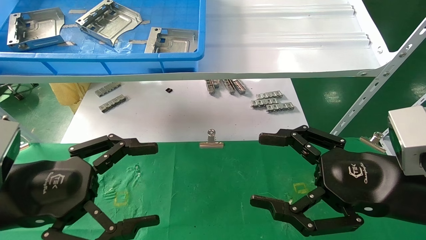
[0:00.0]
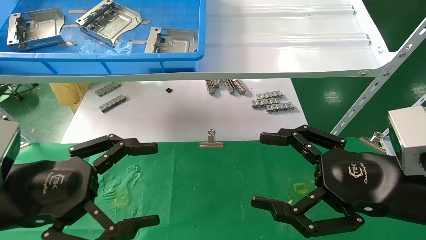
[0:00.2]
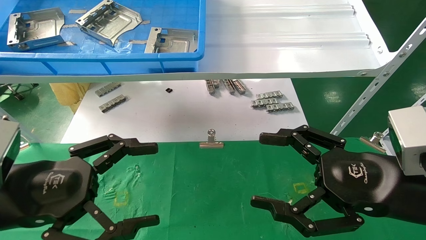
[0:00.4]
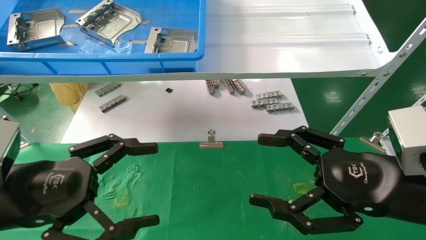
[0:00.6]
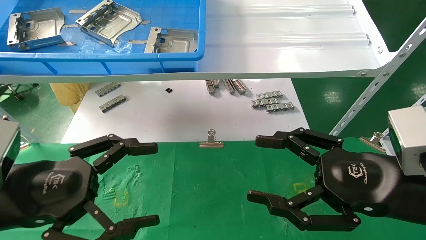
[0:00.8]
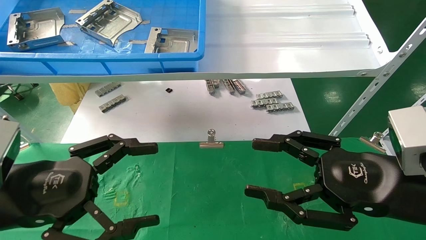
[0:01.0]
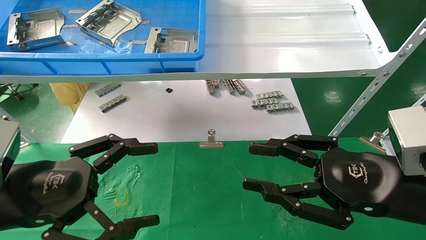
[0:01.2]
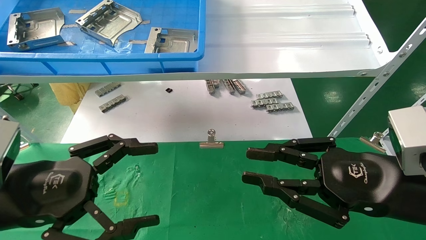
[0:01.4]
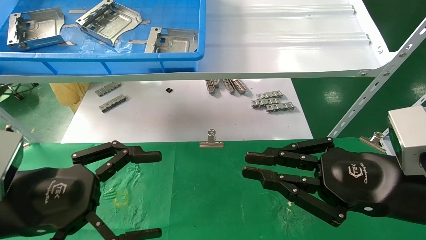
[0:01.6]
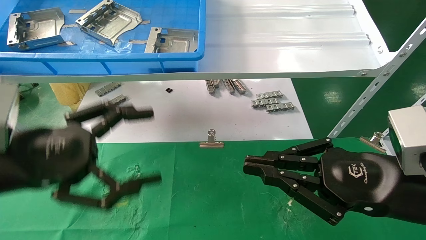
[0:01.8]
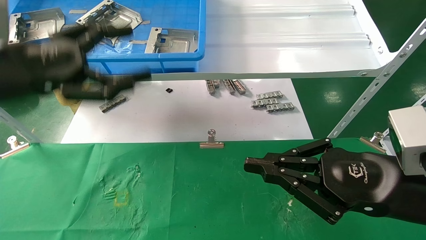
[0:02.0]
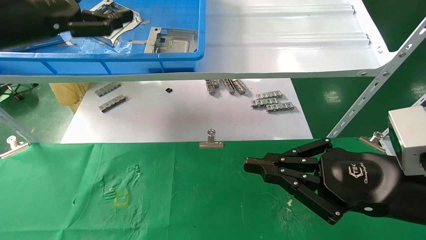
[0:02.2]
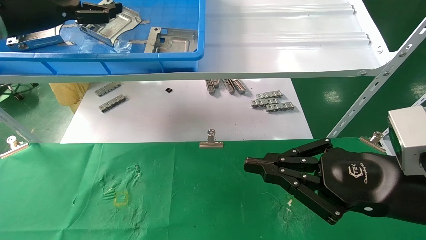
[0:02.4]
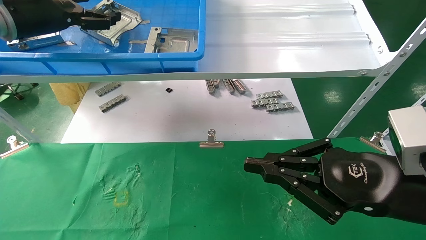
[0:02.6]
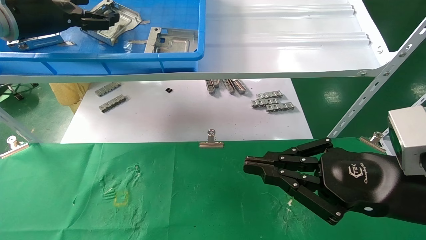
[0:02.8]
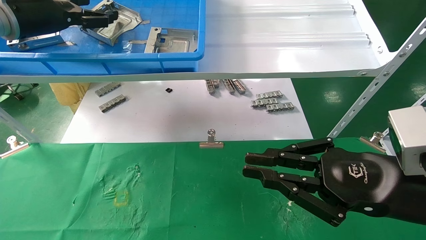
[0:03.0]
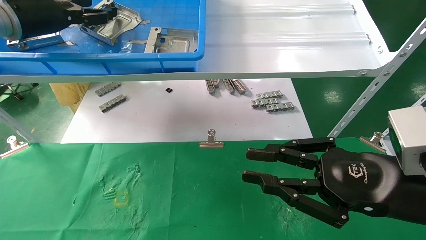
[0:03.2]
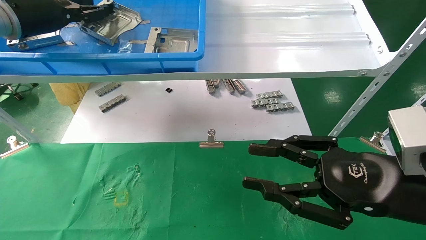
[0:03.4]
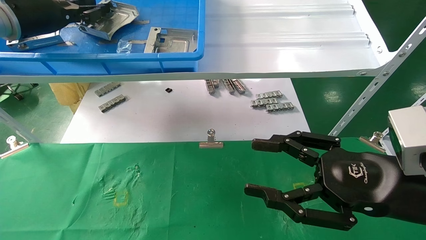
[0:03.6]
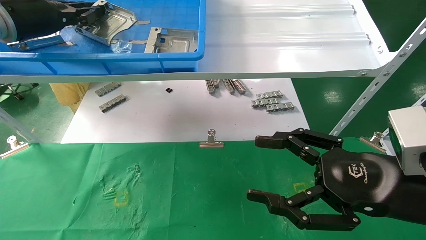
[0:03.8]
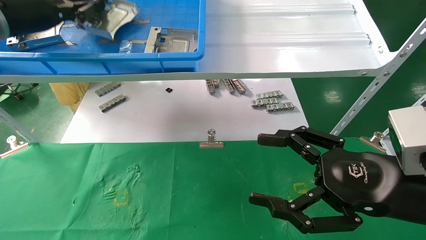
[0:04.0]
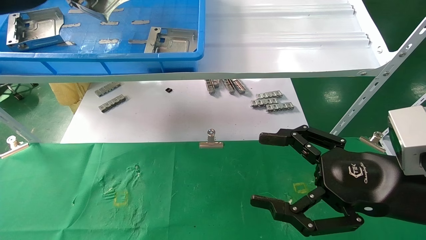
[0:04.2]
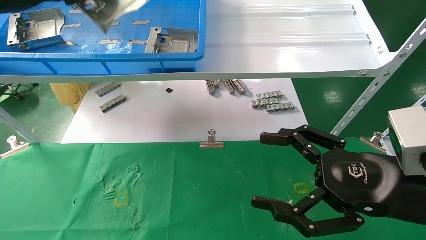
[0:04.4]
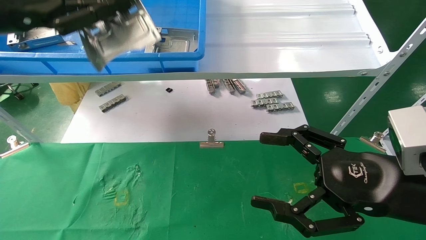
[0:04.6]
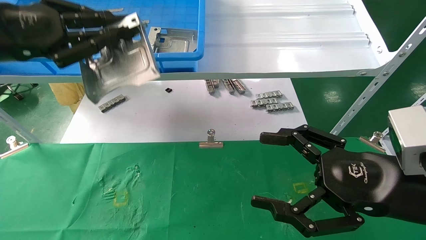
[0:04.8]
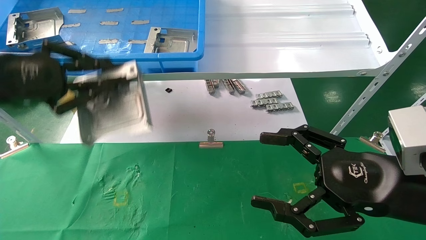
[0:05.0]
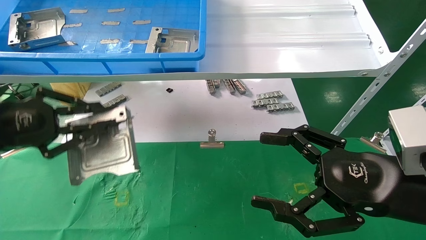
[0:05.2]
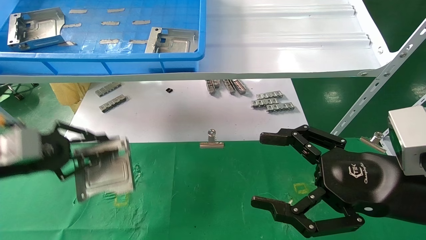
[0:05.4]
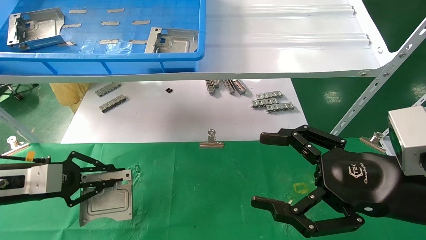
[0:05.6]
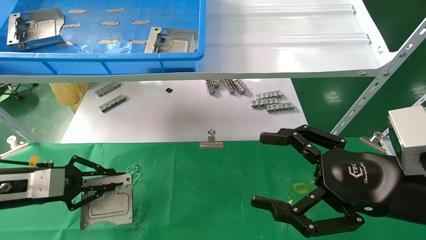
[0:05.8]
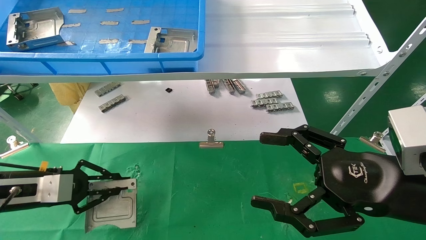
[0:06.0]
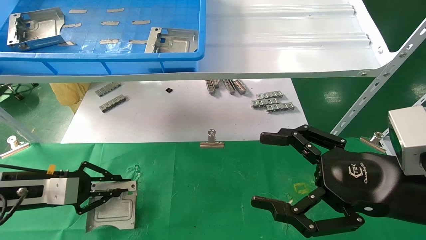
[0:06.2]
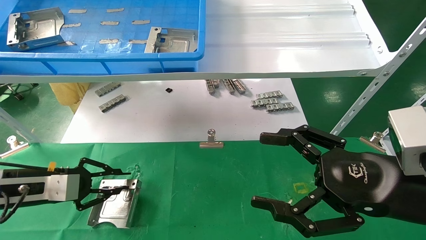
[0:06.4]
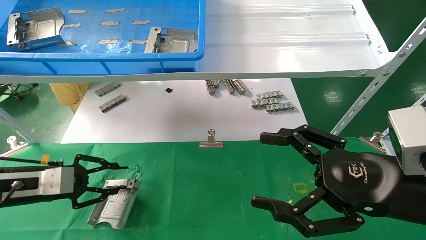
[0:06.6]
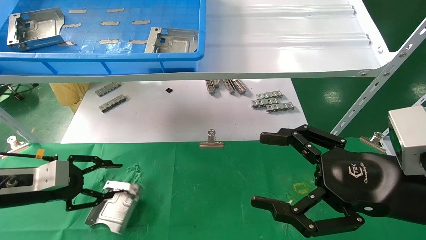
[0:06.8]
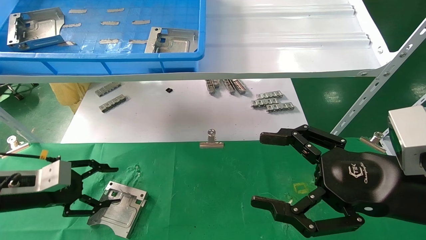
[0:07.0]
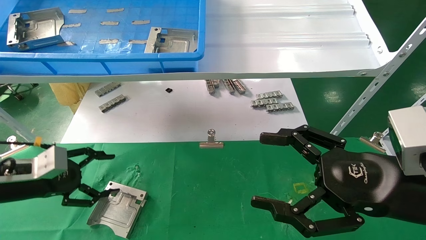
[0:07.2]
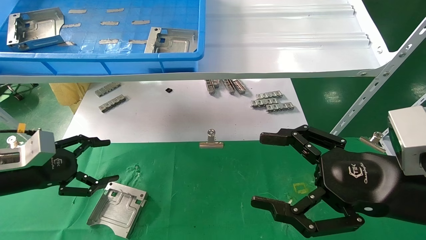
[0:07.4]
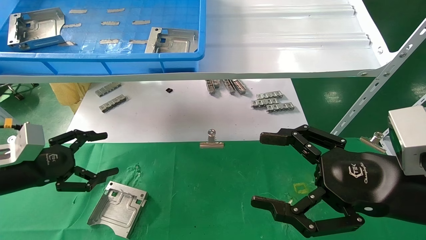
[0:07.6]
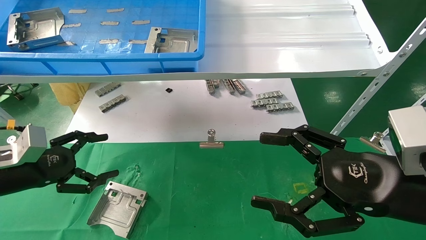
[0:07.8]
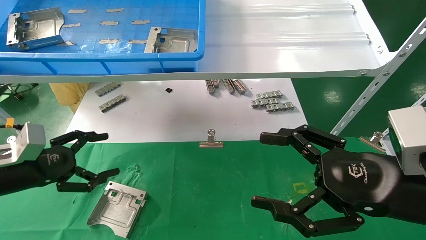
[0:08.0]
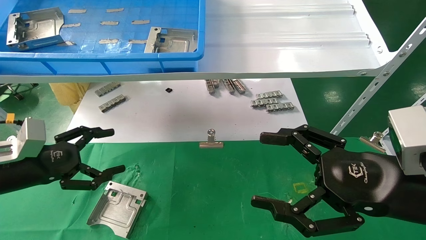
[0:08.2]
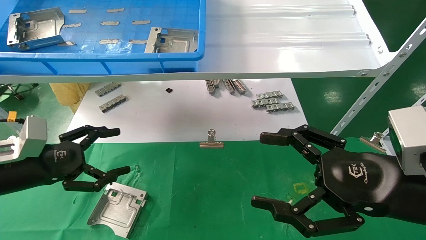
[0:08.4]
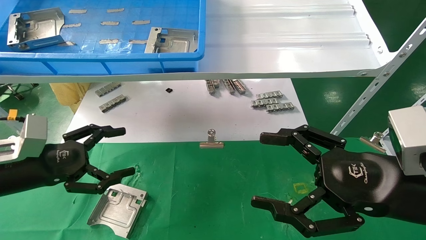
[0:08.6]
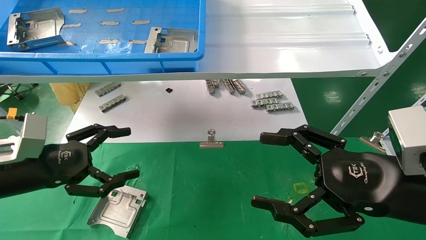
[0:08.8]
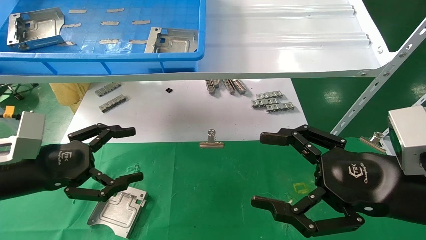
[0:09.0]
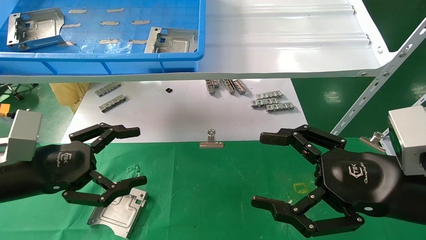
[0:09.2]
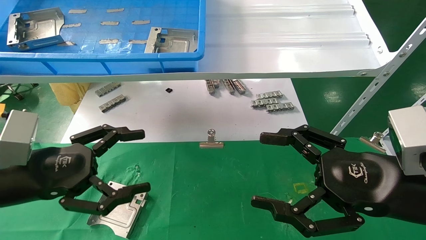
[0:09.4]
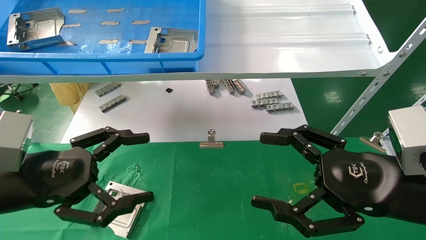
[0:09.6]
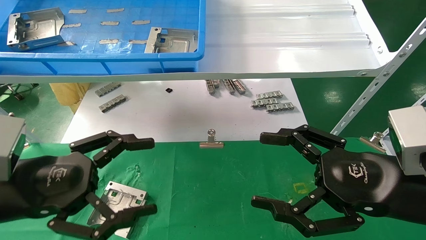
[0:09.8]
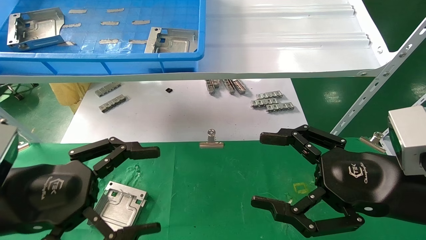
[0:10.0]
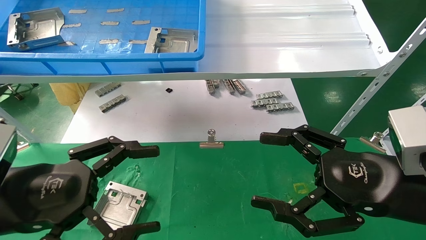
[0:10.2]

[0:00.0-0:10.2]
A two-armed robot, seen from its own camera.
Task of the whole recording: use the mechanical arm to pick up the parts and place them on the table.
Step, 0:02.0 to 0:03.8: Pick up the hard drive bracket from the feeding area.
Step, 0:04.0 to 0:06.4: Place the hard drive bracket into the box.
0:00.0 to 0:01.4: The right gripper closes up.
0:01.4 to 0:03.0: The left gripper heads forward and upward, covering some 30 cm.
0:03.0 to 0:04.4: The right gripper opens; the left gripper goes about 10 cm backward, and closes.
0:04.4 to 0:05.8: The left gripper heads downward, covering approximately 30 cm.
0:05.8 to 0:07.2: The left gripper opens.
0:07.2 to 0:08.8: The left gripper travels to the right by roughly 5 cm.
0:08.8 to 0:10.2: The left gripper shifts approximately 10 cm backward and to the right.

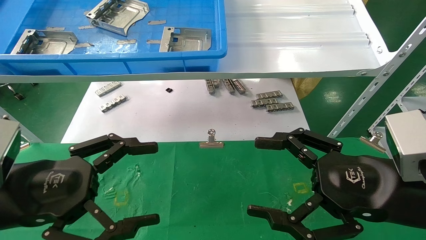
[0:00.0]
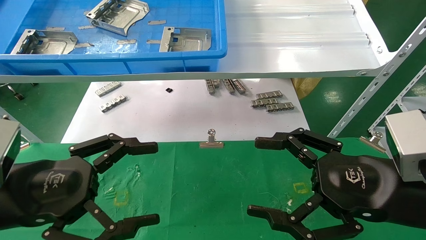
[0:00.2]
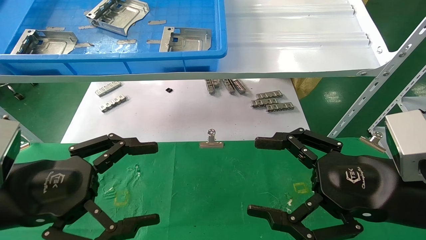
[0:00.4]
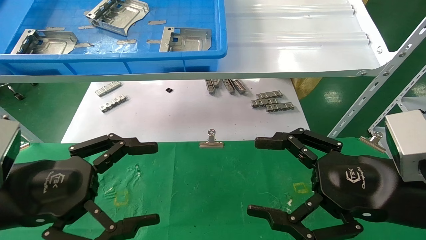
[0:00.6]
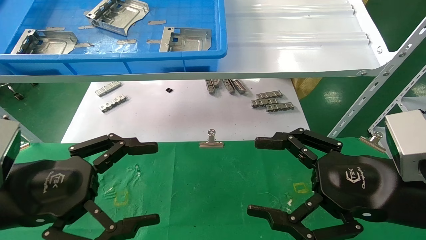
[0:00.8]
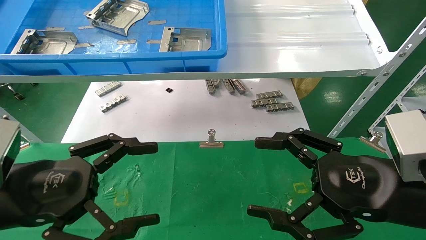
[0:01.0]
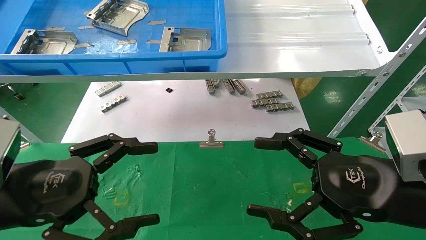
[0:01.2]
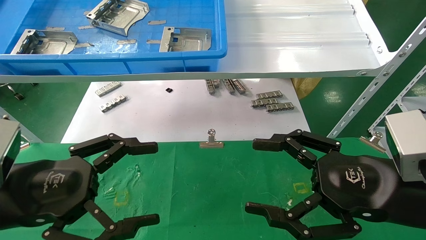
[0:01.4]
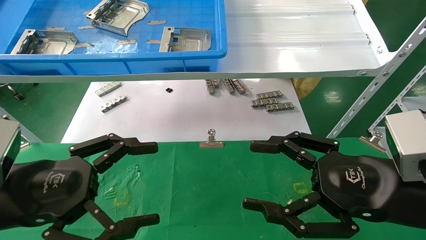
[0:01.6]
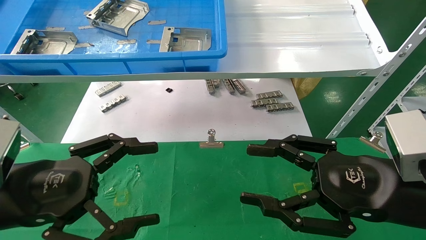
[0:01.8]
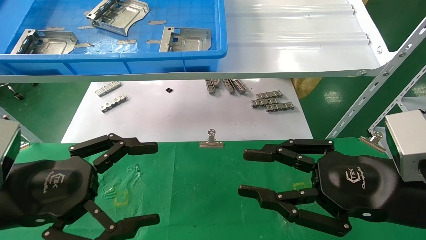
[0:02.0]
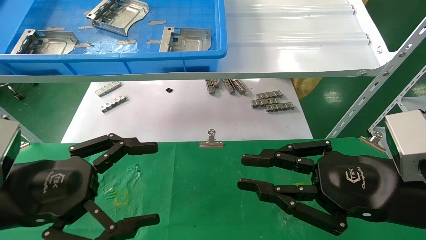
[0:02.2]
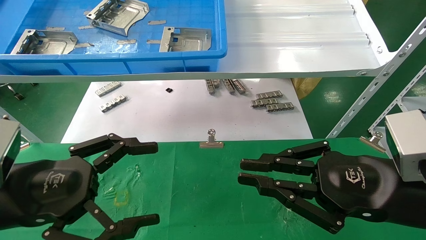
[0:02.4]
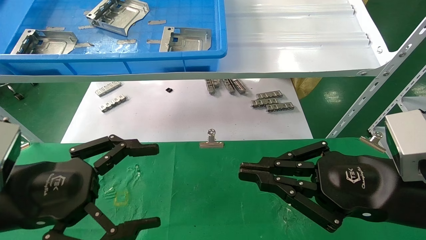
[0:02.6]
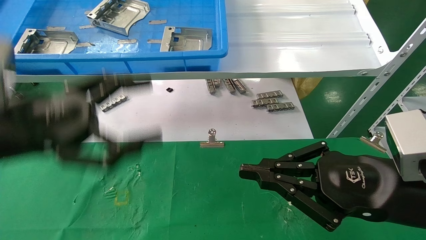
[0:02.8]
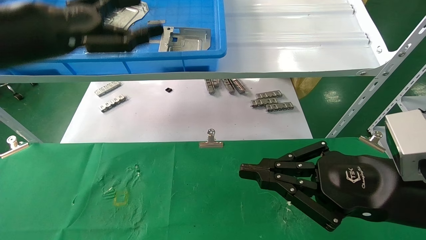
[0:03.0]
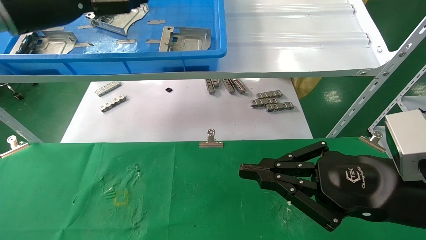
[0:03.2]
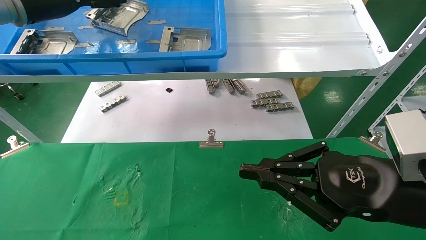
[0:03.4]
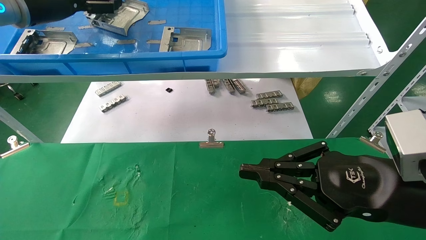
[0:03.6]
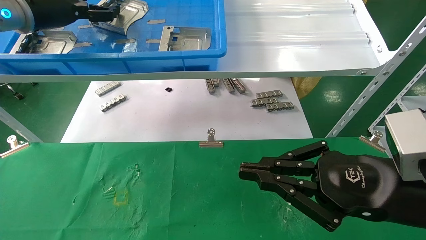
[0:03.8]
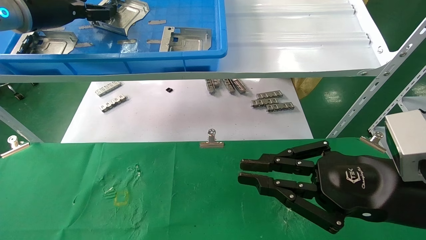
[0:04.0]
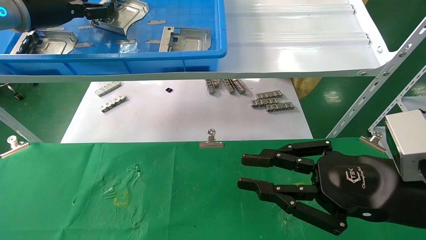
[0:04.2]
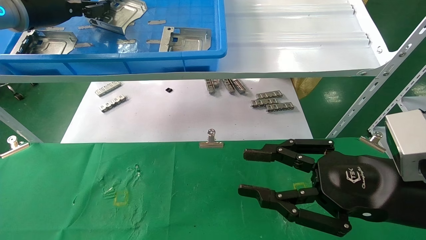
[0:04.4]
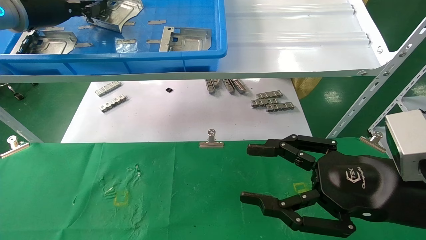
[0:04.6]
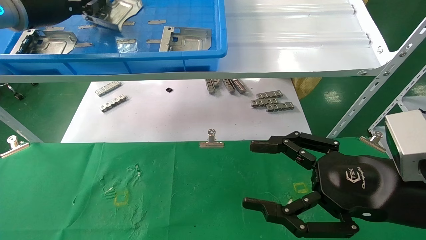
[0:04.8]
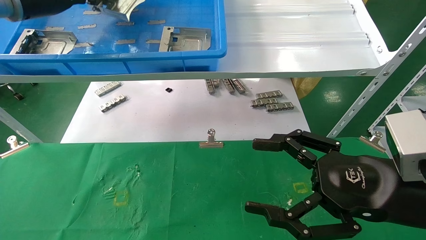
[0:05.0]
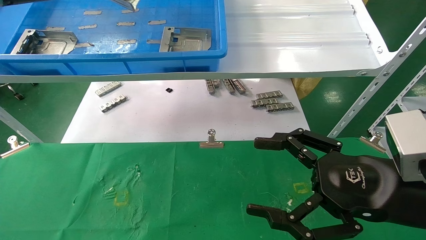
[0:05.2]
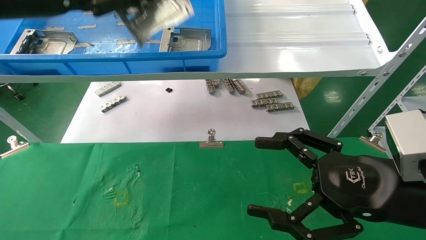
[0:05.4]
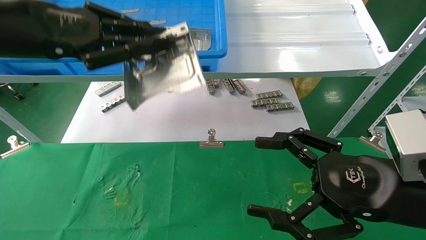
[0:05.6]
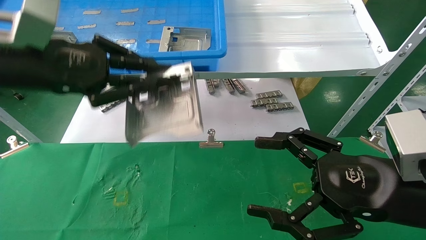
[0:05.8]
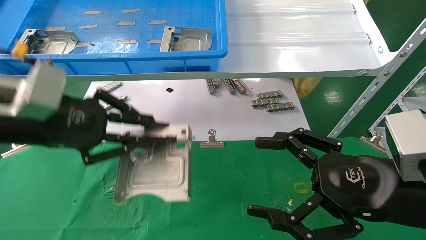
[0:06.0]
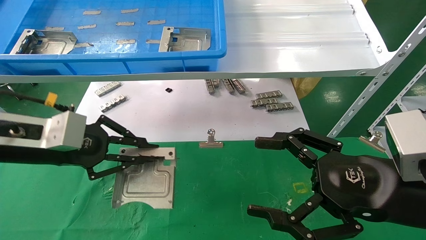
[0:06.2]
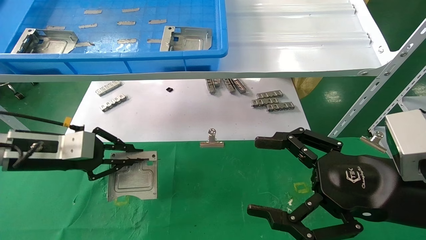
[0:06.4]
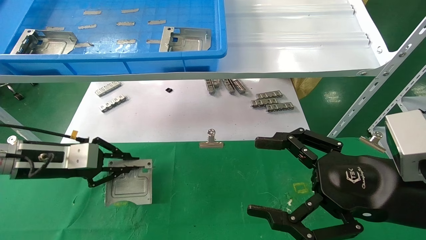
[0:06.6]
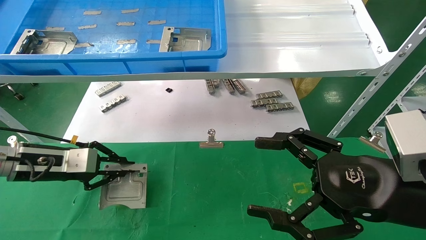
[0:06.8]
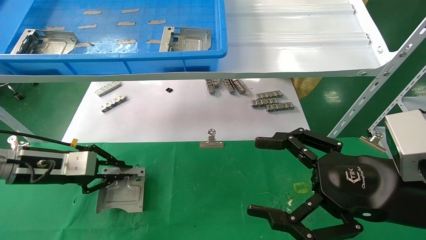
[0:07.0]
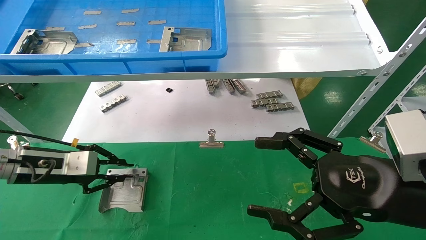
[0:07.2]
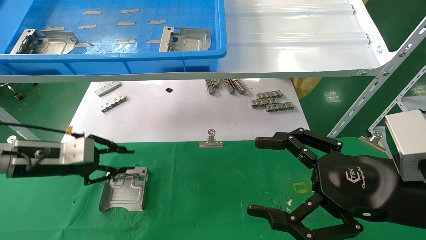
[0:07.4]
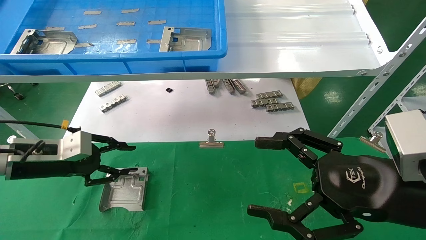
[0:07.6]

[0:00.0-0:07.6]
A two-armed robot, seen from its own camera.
Task of the whole recording: use the mechanical arm to pick up the parts and place them on the table.
Step, 0:03.0 to 0:05.0: Pick up the hard drive bracket from the feeding area.
Step, 0:05.2 to 0:07.2: Place the hard drive bracket into the box.
0:00.0 to 0:01.6: Both grippers stay about where they are.
0:01.6 to 0:03.0: The left gripper moves upward and forward, roughly 20 cm, while the right gripper closes.
0:03.0 to 0:04.6: The right gripper opens up. Meanwhile the left gripper shifts some 15 cm forward and upward, and closes.
0:04.6 to 0:06.0: The left gripper is displaced backward and downward by about 20 cm, and closes. The right gripper opens up.
0:06.0 to 0:07.6: The left gripper shifts roughly 15 cm downward, forward and to the left.
